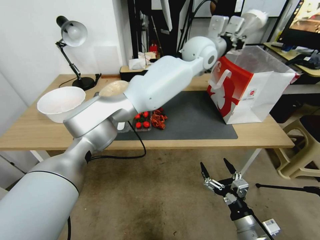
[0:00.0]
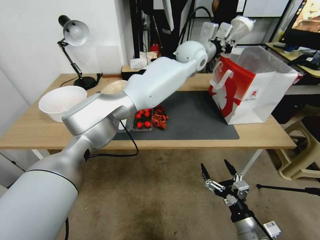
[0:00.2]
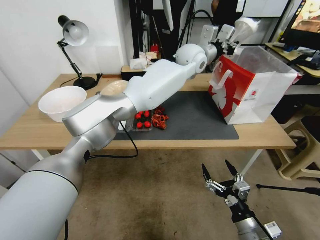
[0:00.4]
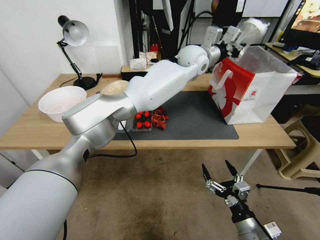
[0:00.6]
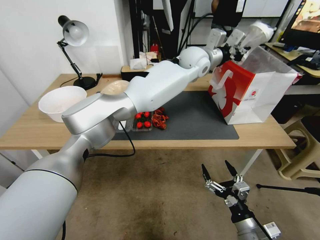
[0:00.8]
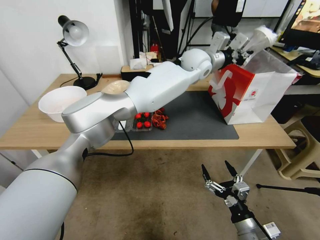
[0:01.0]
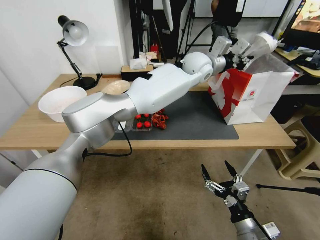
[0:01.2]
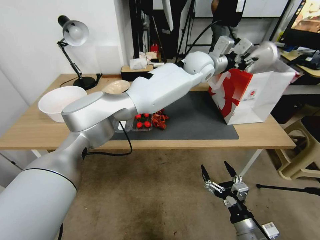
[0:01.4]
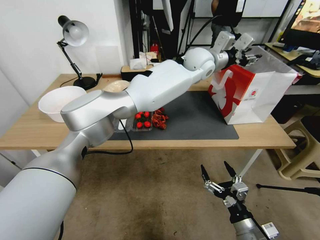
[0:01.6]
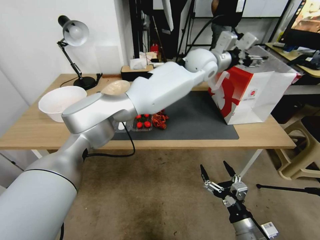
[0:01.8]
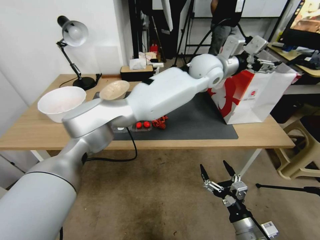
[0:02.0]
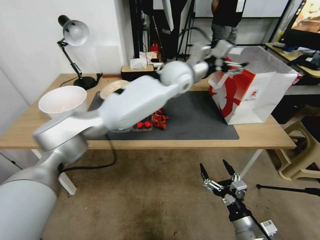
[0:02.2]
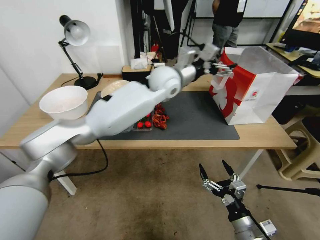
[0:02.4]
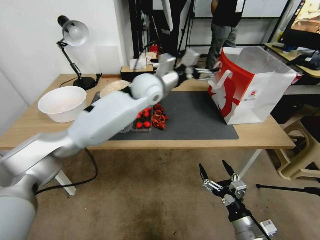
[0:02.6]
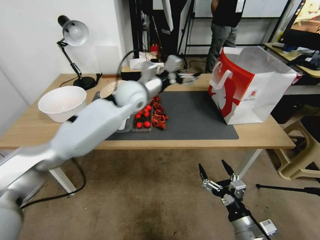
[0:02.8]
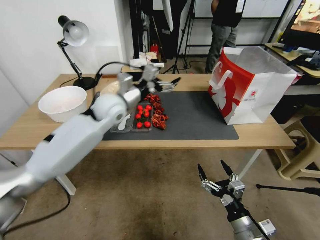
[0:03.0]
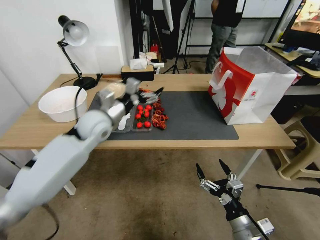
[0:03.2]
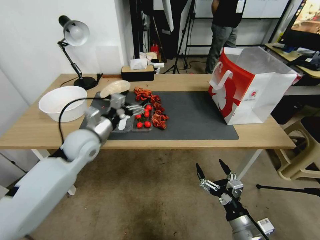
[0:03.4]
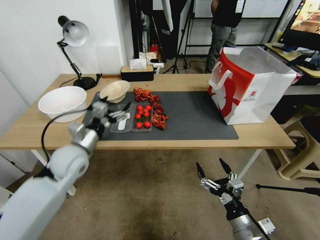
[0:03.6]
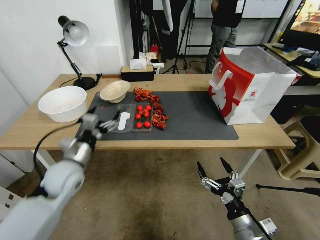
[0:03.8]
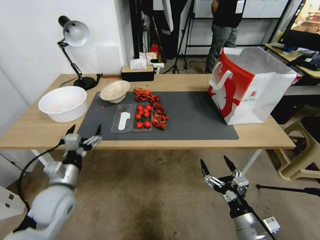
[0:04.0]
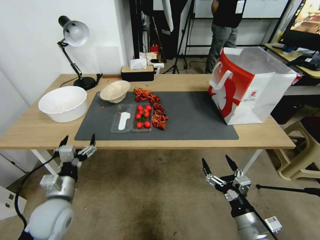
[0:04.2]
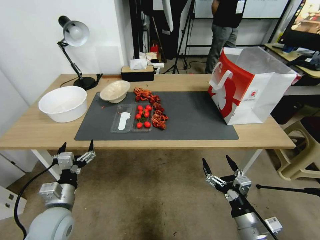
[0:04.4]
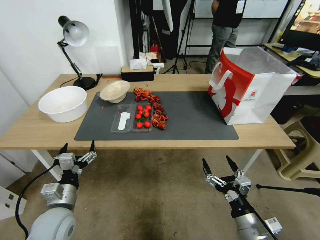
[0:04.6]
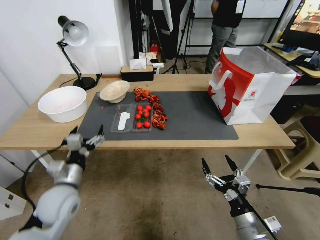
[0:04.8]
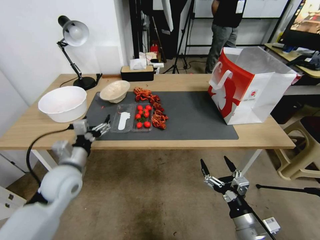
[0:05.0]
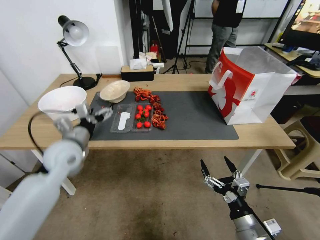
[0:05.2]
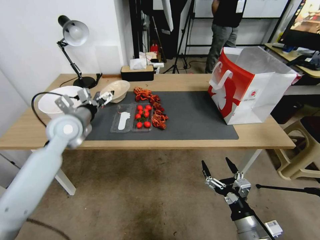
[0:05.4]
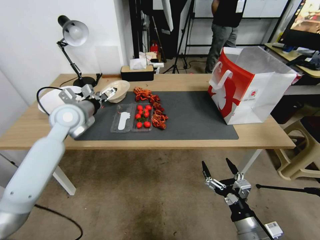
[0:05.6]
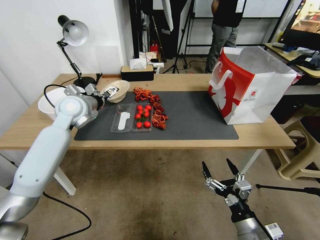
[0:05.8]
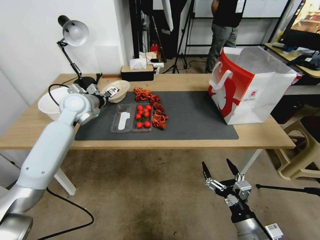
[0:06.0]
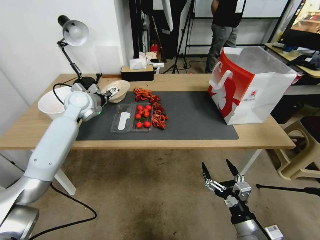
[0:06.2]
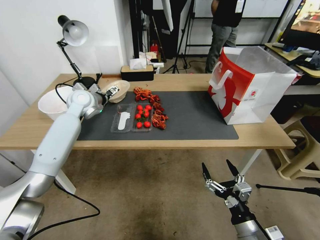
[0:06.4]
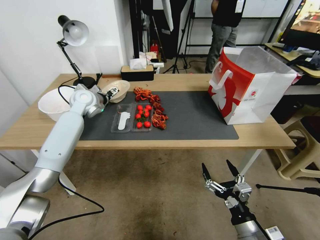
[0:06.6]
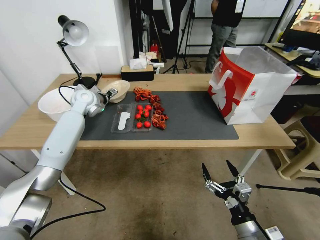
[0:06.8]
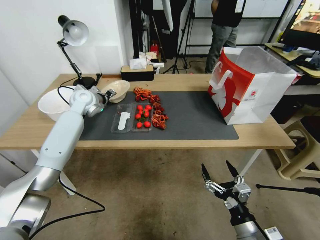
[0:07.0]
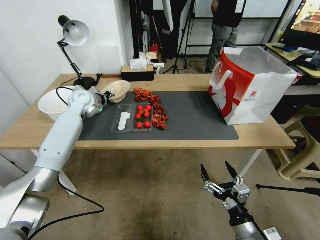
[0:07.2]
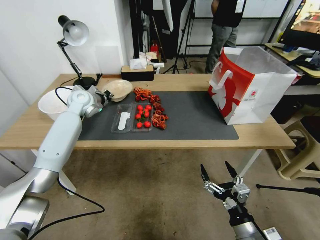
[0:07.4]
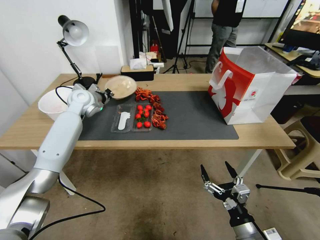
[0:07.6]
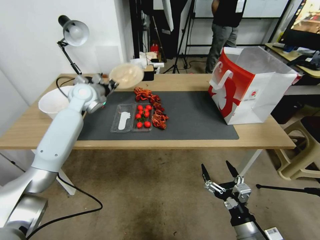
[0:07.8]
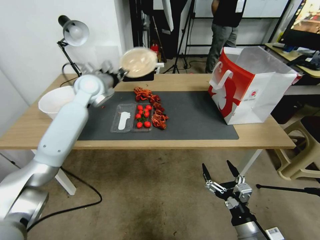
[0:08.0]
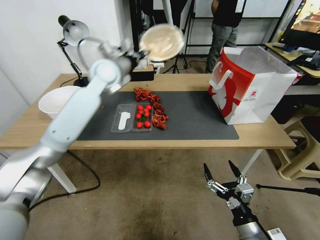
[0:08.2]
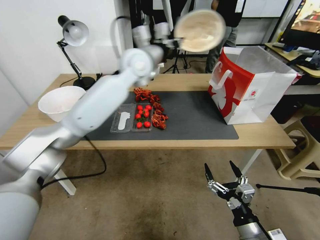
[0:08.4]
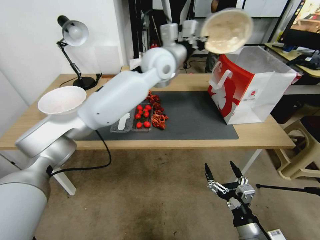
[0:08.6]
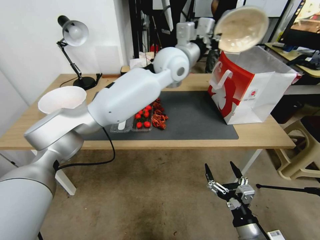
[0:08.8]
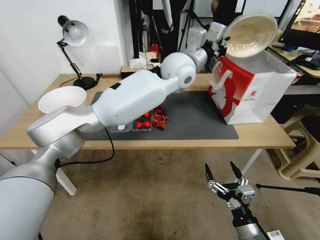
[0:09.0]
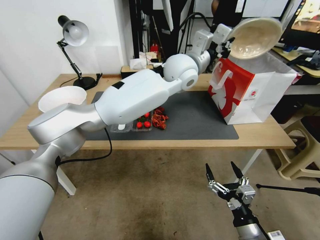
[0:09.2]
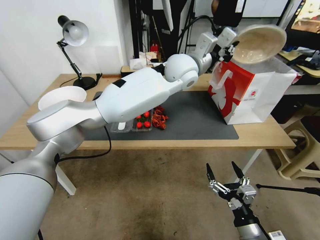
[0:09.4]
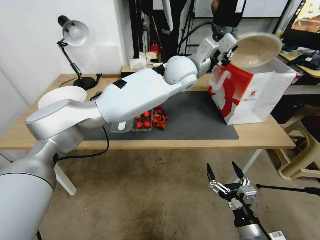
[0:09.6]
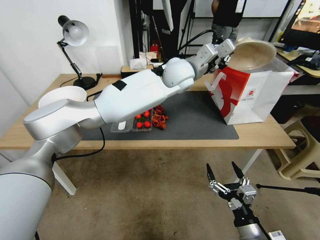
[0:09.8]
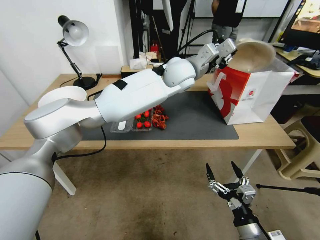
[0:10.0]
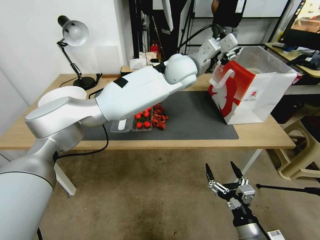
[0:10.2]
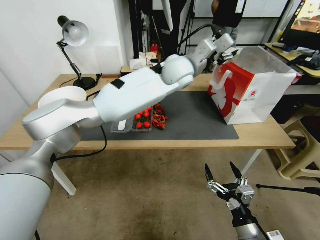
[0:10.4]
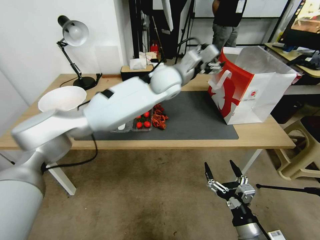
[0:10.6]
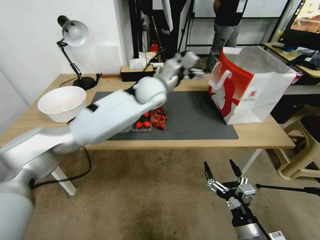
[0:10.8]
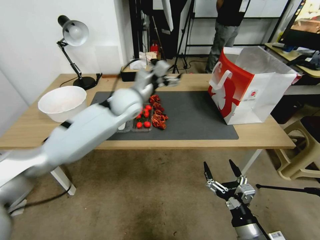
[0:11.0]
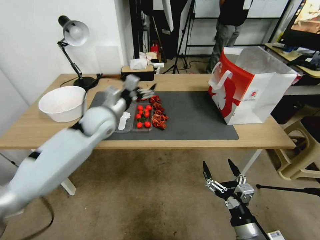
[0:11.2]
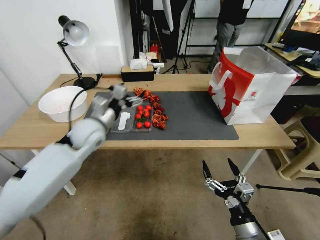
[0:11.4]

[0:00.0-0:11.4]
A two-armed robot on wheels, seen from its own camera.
0.0 to 1.4 s: The grippers stay close to where they were, moving slightly.
1.4 to 2.8 s: The left gripper shifts roughly 20 cm to the left, and opens its fingers.
2.8 to 4.2 s: The left gripper is displaced backward, downward and to the left by about 40 cm.
4.2 to 5.6 s: The left gripper is displaced forward and upward by approximately 20 cm.
5.6 to 7.2 s: The left gripper is displaced forward by roughly 20 cm, and closes its fingers.
7.2 to 8.6 s: The left gripper moves to the right and upward, roughly 35 cm, and closes up.
8.6 to 10.0 s: The left gripper shifts roughly 5 cm to the right.
10.0 to 11.4 s: The left gripper goes about 30 cm to the left, downward and backward, and opens its fingers.

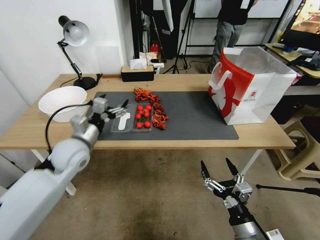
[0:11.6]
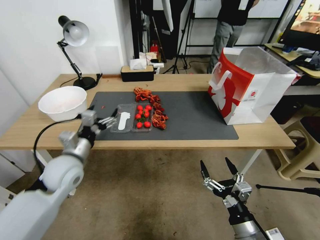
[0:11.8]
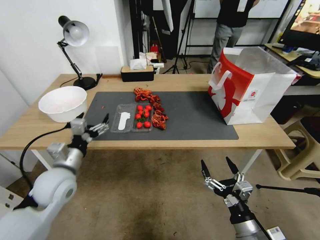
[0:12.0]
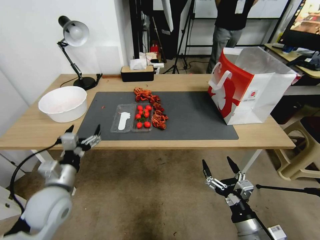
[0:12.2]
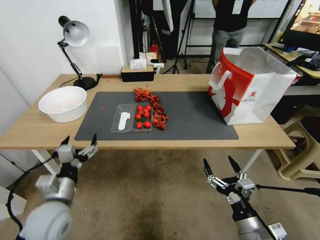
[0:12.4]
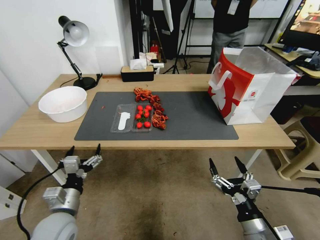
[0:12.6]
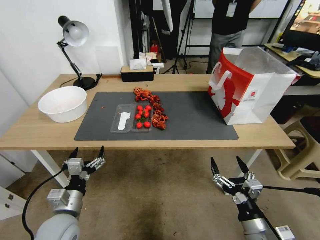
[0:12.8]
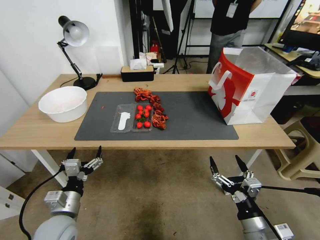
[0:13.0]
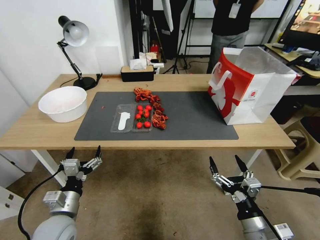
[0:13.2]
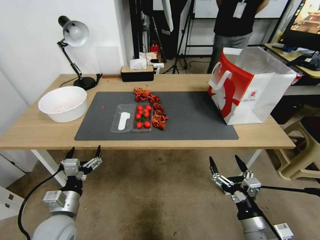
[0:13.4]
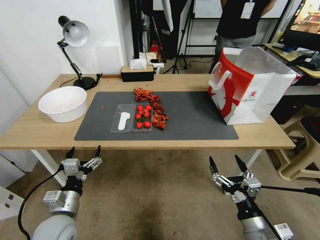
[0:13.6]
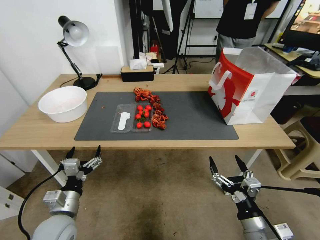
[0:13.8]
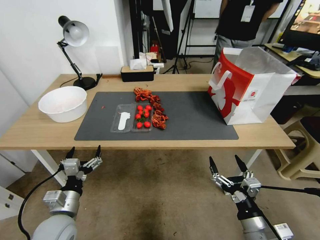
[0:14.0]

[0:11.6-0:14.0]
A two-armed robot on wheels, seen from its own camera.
11.6 to 12.8 s: The left gripper is displaced backward and downward by approximately 20 cm.
12.8 to 14.0 s: The two grippers keep their place.

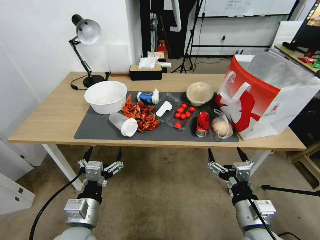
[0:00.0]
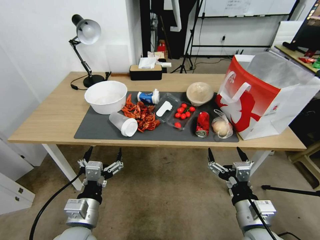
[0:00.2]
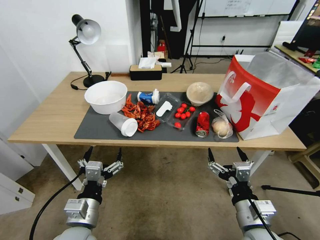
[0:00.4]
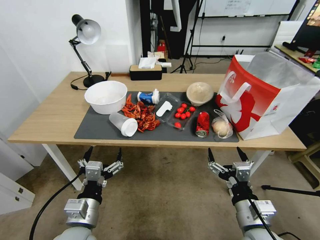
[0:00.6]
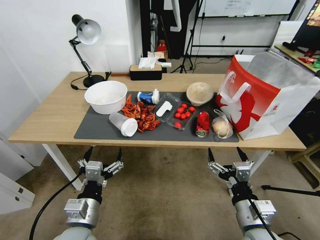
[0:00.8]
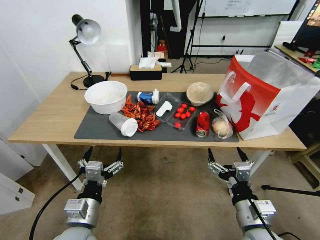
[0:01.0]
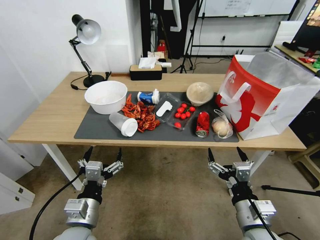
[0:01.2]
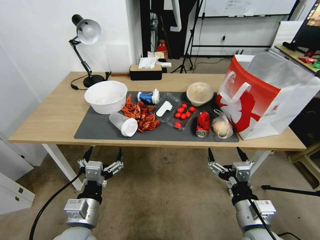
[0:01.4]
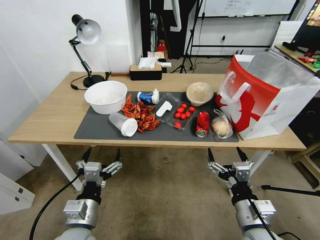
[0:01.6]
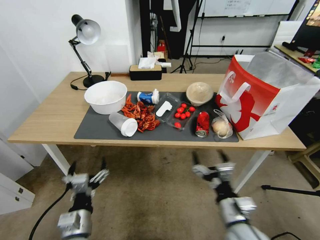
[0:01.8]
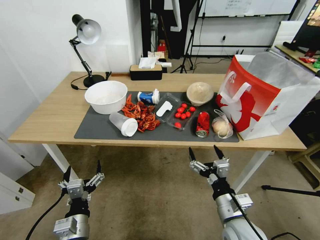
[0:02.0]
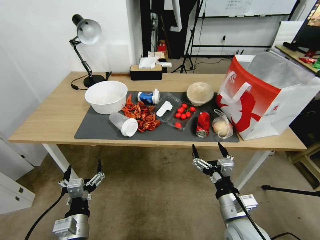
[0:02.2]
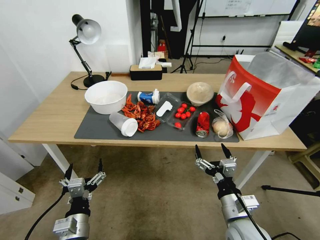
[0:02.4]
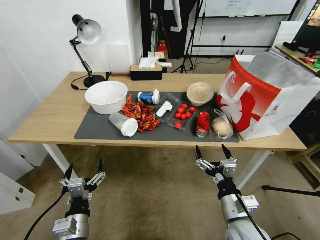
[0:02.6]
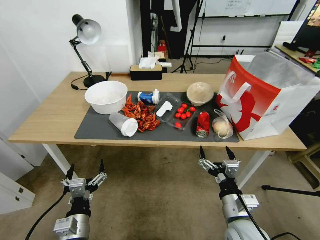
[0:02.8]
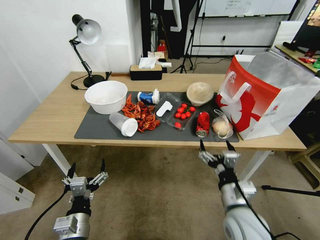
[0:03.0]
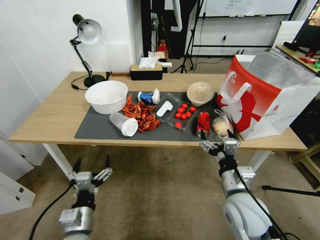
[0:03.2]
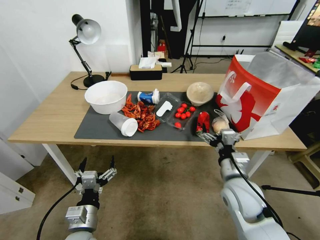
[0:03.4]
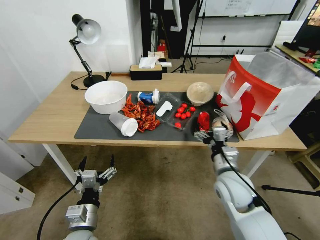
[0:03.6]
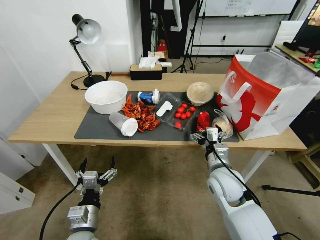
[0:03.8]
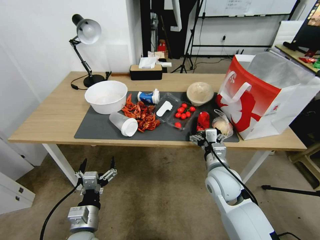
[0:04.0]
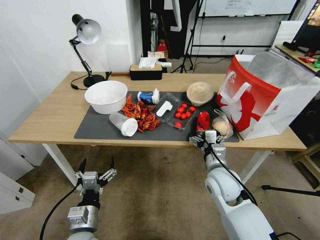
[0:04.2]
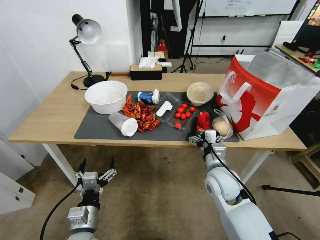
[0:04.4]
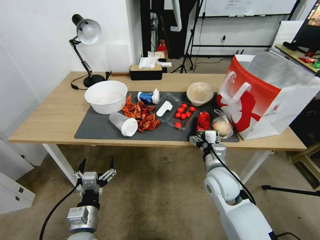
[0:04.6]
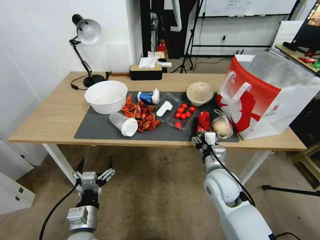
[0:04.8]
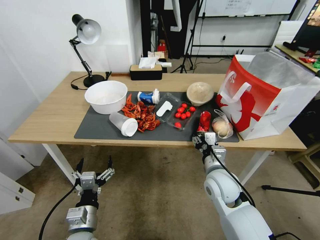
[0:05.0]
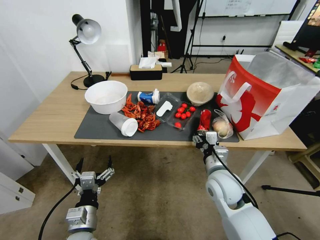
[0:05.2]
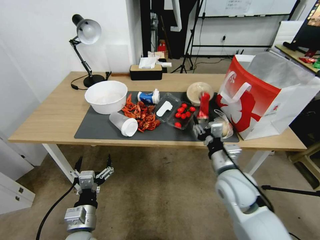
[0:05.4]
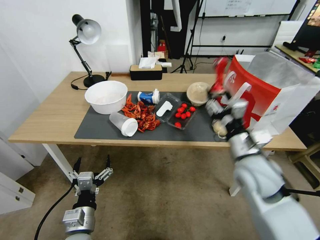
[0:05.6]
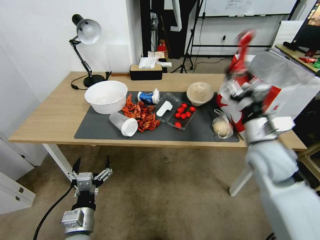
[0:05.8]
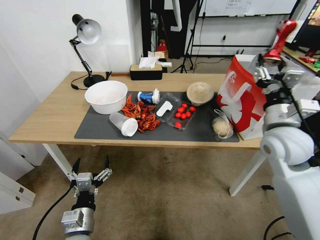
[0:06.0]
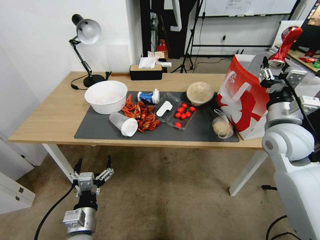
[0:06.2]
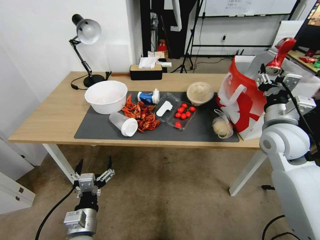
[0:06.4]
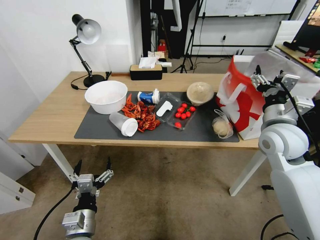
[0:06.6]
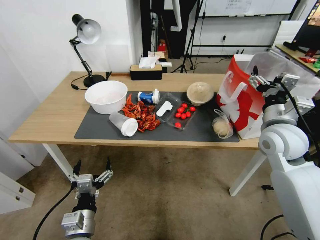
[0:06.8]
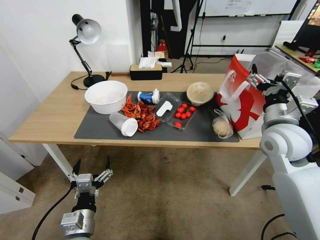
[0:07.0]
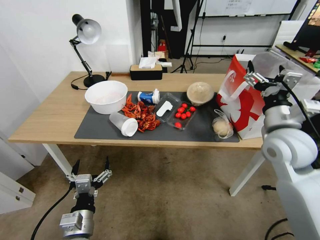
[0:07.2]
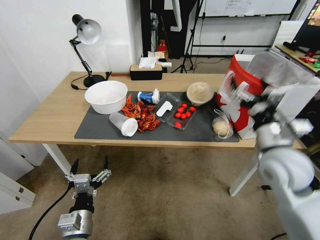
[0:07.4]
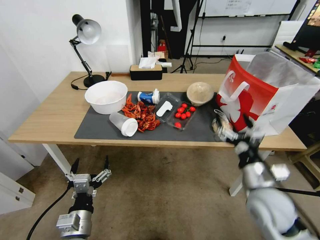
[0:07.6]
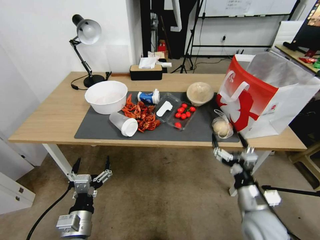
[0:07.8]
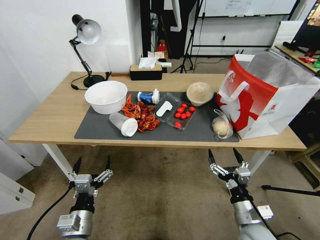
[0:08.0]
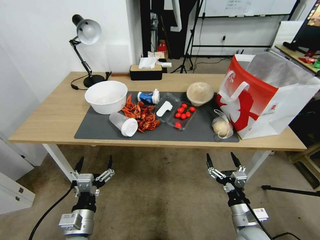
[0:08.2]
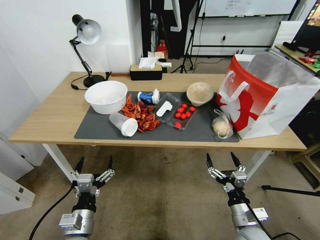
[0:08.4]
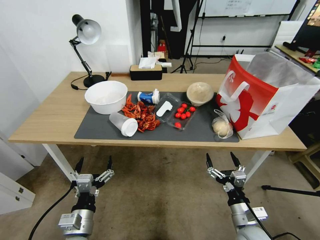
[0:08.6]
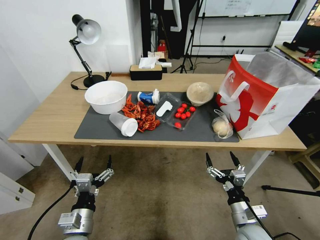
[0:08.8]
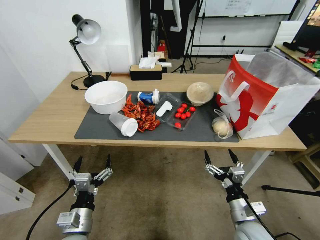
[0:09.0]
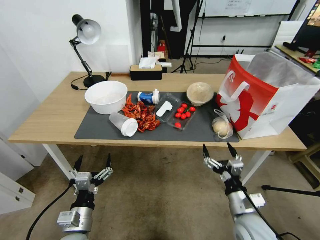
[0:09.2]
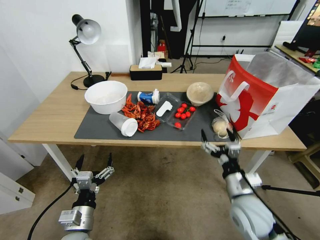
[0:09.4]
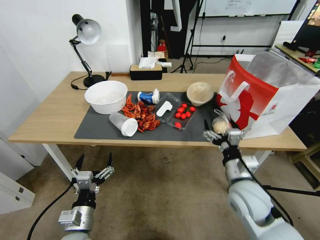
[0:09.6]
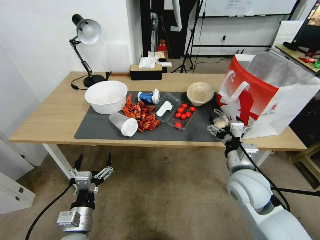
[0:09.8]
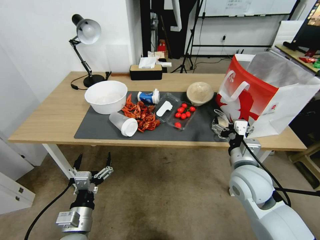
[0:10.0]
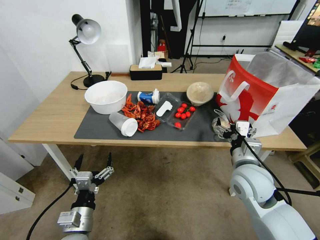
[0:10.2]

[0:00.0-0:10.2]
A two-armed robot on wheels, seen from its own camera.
1.4 to 3.0 s: The right gripper shifts by approximately 5 cm; the left gripper moves downward, approximately 5 cm.
3.0 to 4.4 s: The right gripper shifts some 10 cm forward.
4.4 to 5.8 s: The right gripper shifts about 15 cm upward and to the right, and closes up.
5.8 to 7.2 s: The right gripper ends up approximately 5 cm from where it was, and opens its fingers.
7.2 to 8.8 s: The right gripper goes roughly 30 cm downward and backward.
8.8 to 10.2 s: The right gripper heads upward and forward, covering approximately 20 cm.
